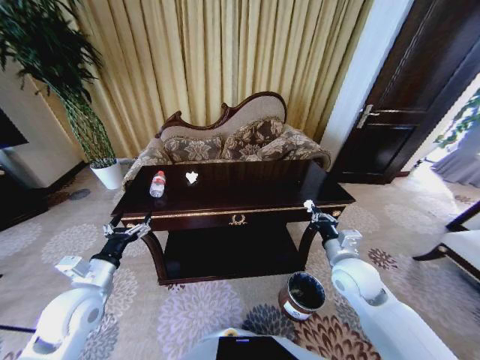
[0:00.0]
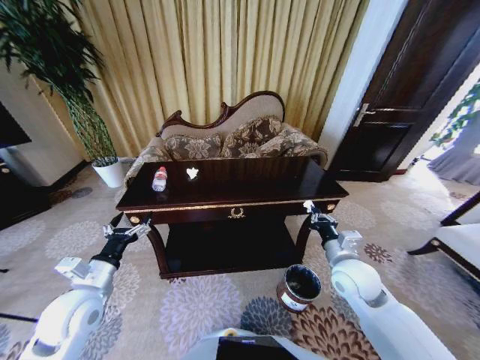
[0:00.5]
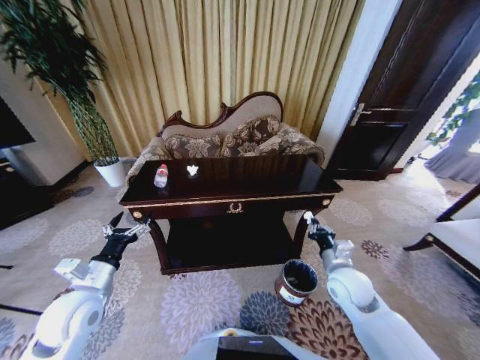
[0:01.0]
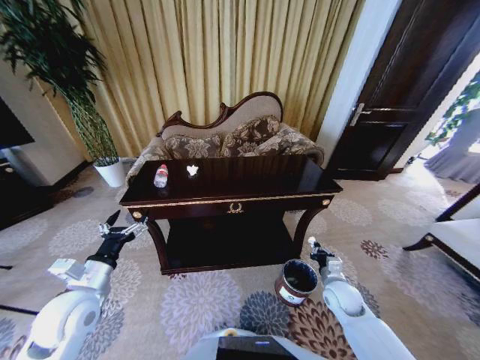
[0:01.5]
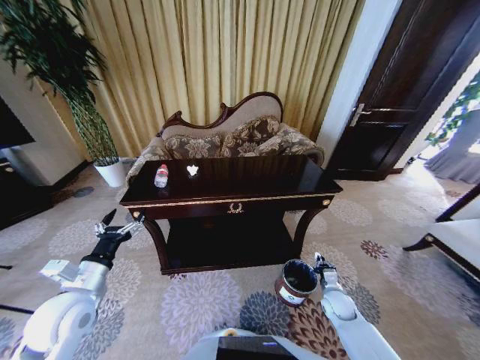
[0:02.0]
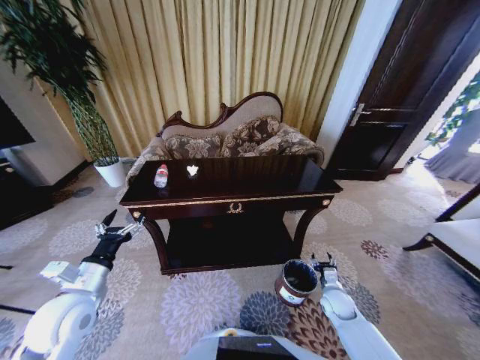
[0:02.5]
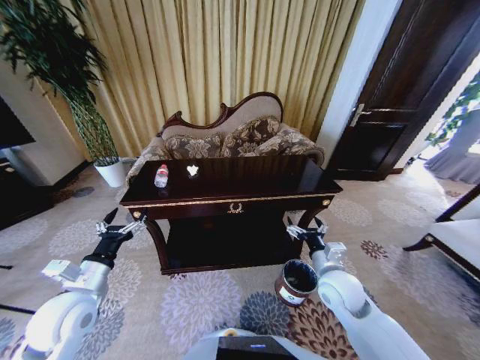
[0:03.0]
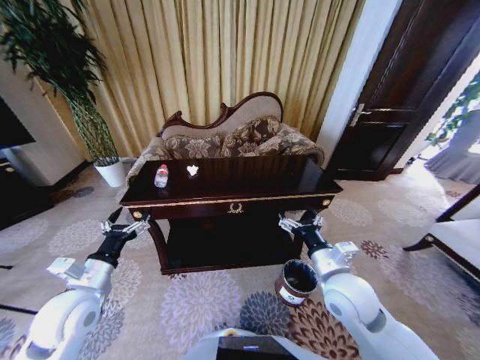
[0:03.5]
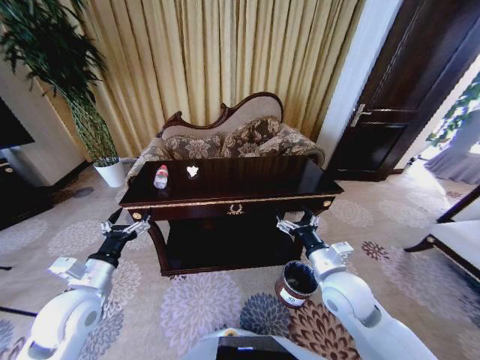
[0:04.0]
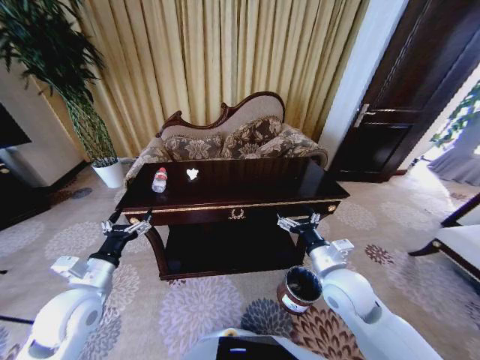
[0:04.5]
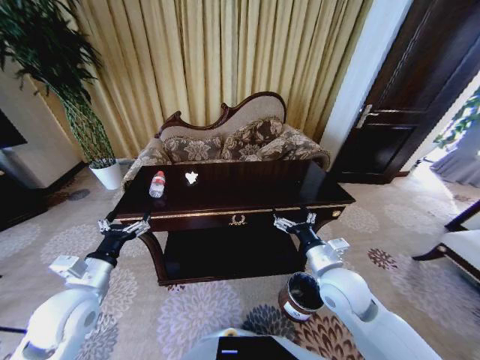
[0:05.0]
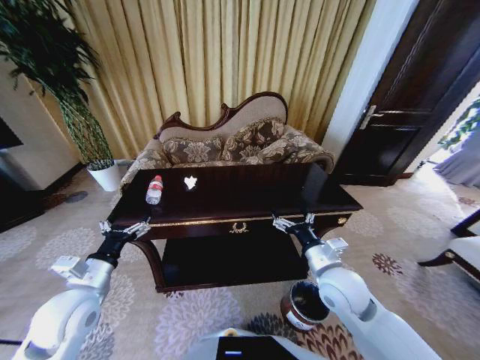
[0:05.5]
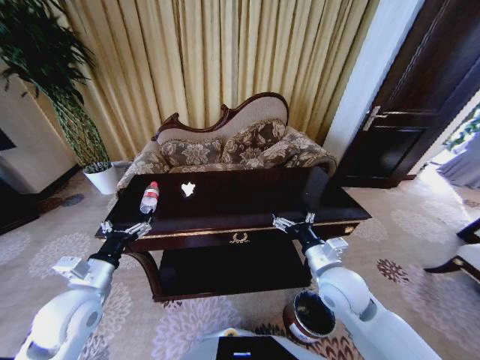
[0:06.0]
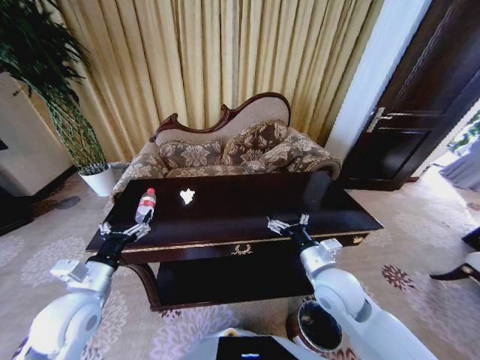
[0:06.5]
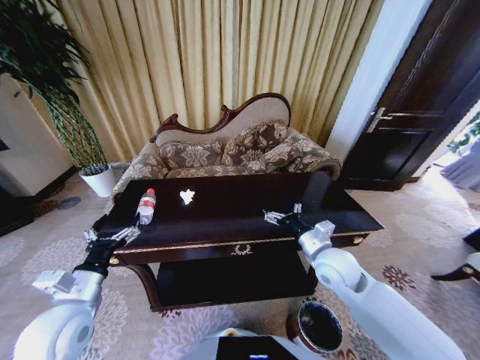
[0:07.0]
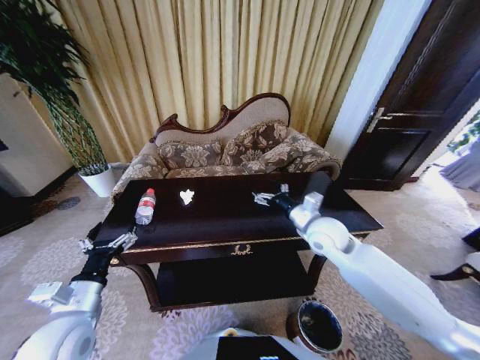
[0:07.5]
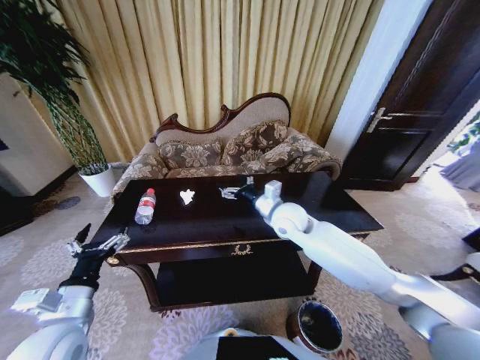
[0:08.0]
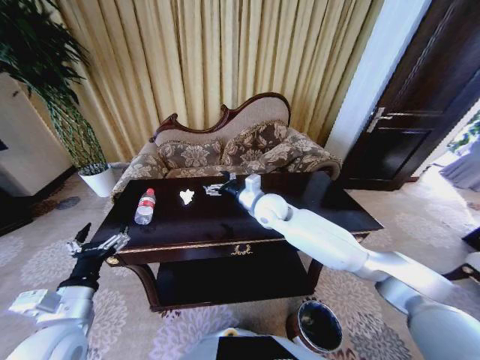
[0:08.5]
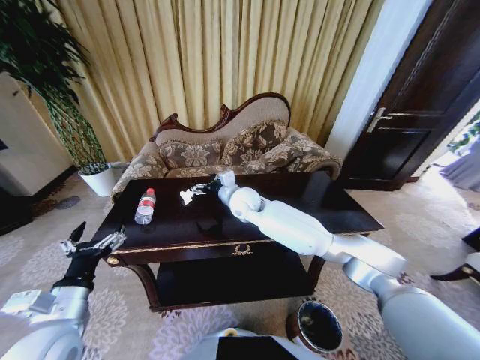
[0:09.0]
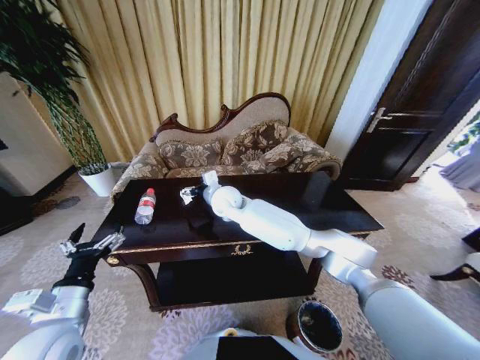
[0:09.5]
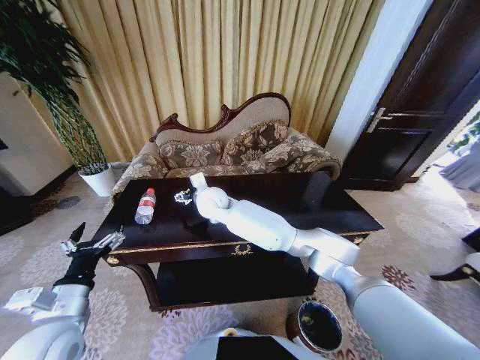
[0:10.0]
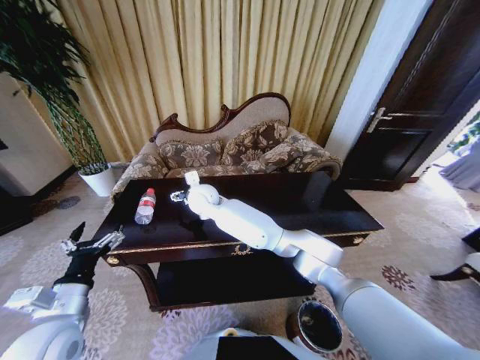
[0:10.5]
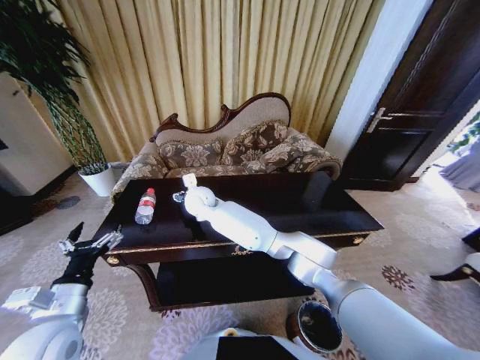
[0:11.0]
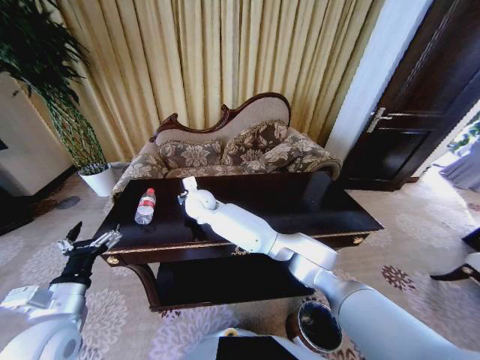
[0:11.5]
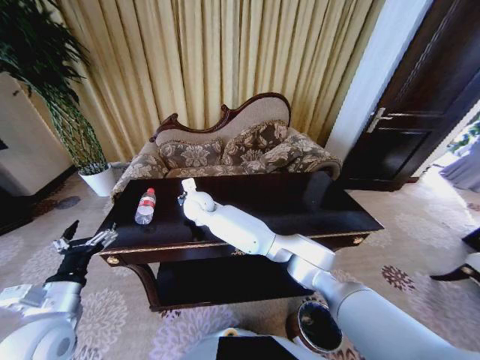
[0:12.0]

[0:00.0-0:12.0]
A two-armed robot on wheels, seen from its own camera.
Task of the whole recording: Move to the front of the table and place the trash on the table into the trash bin.
0:00.0 to 0:02.0: The right gripper moves downward, some 25 cm.
0:02.0 to 0:04.0: The right gripper travels upward and to the left by about 25 cm, and opens its fingers.
0:06.0 to 0:08.0: The left gripper heads backward, covering about 5 cm, while the right gripper travels forward and to the left by some 20 cm.
0:08.0 to 0:10.0: The right gripper moves to the left, roughly 20 cm.
0:10.0 to 0:12.0: The right gripper moves approximately 5 cm, and closes its fingers.

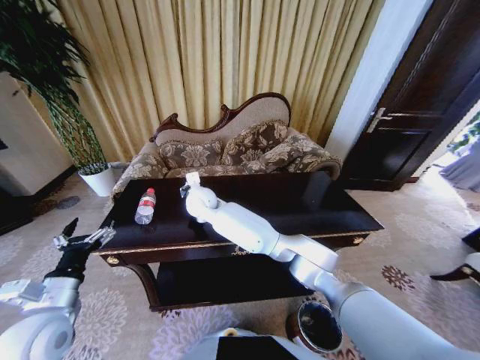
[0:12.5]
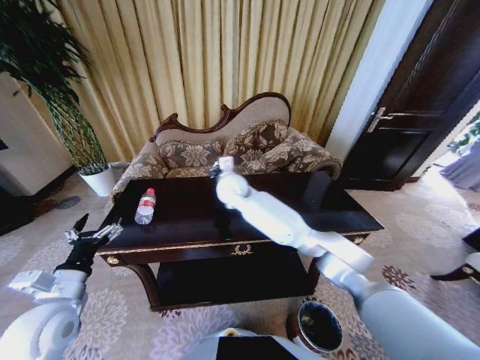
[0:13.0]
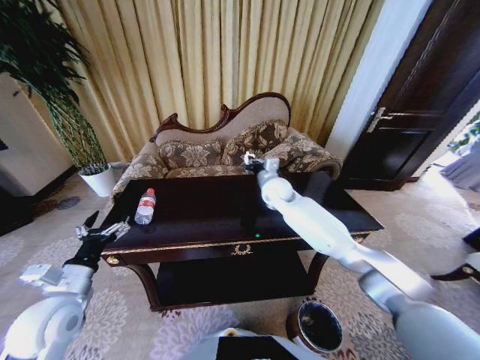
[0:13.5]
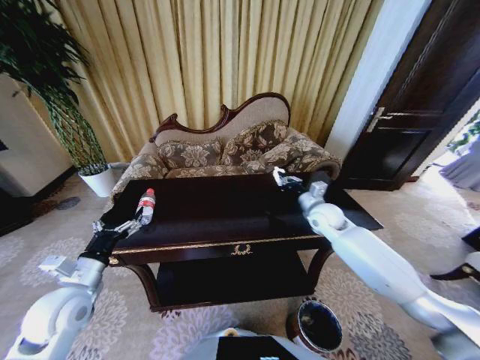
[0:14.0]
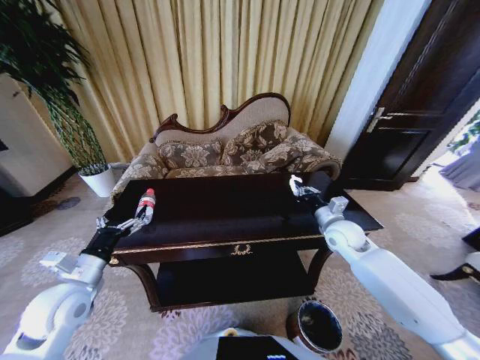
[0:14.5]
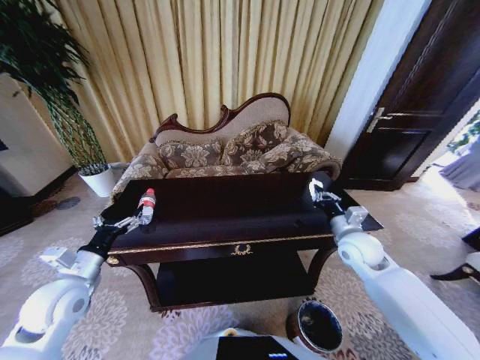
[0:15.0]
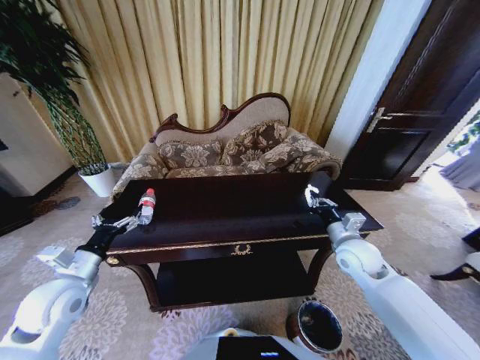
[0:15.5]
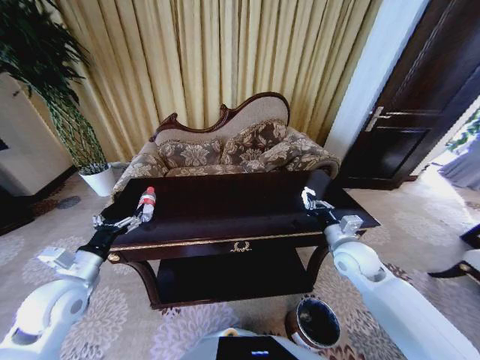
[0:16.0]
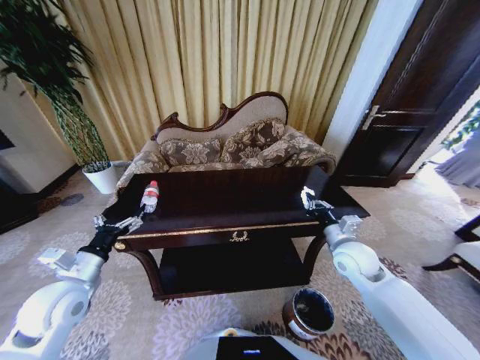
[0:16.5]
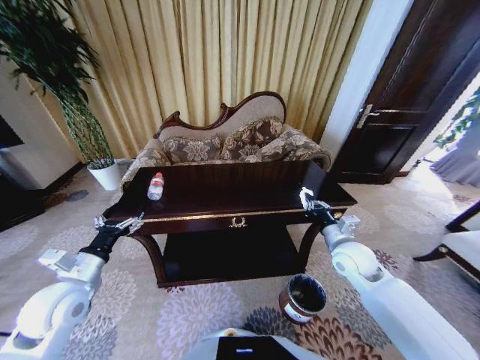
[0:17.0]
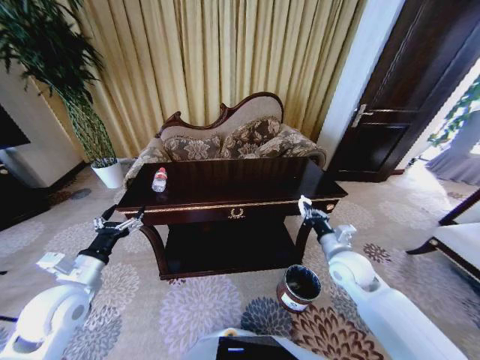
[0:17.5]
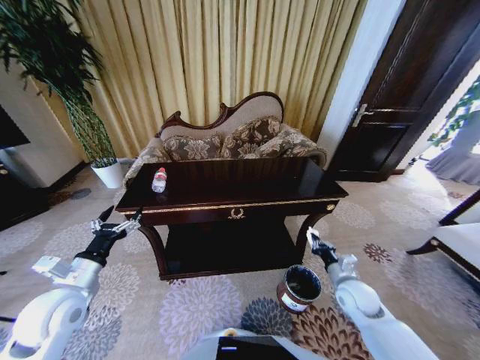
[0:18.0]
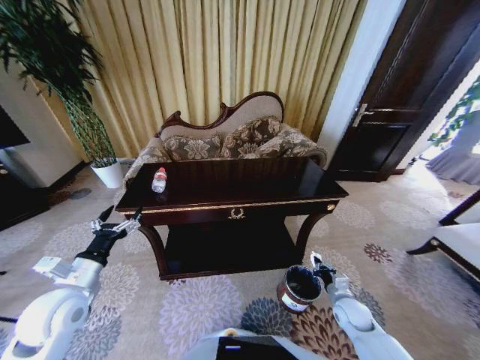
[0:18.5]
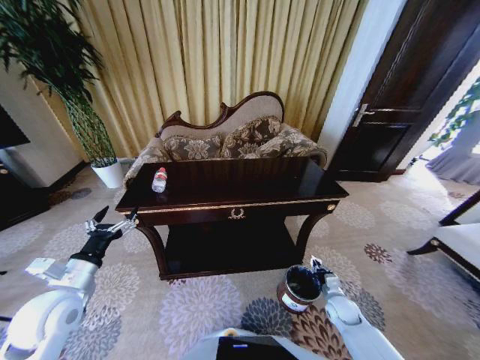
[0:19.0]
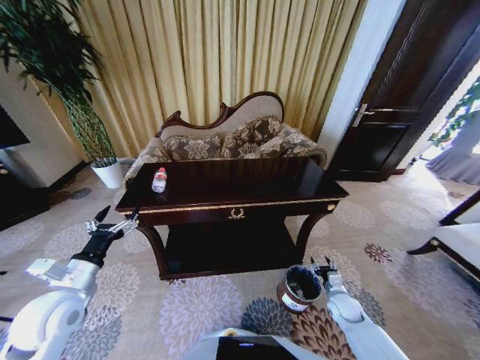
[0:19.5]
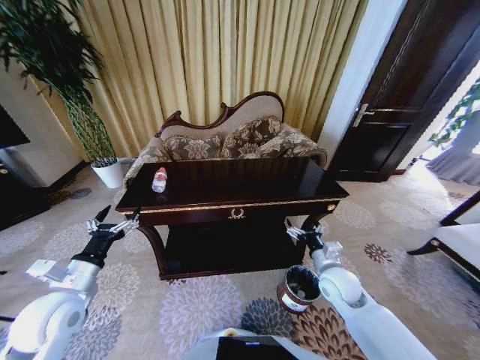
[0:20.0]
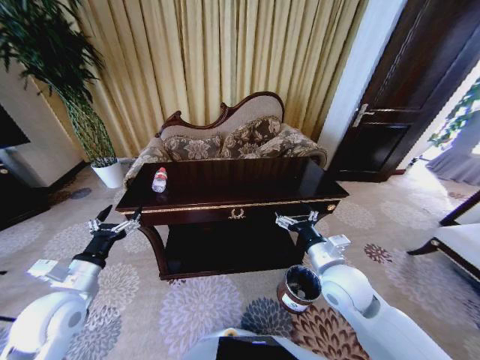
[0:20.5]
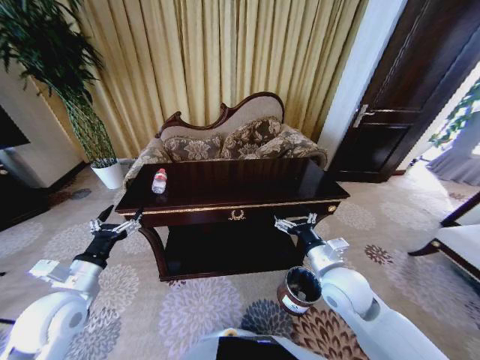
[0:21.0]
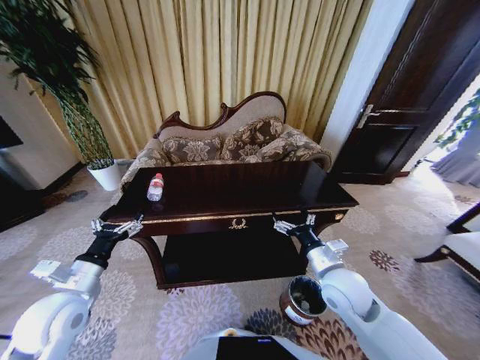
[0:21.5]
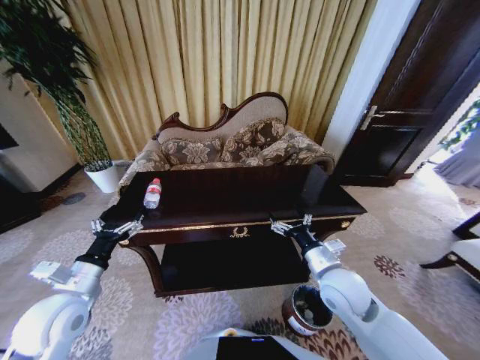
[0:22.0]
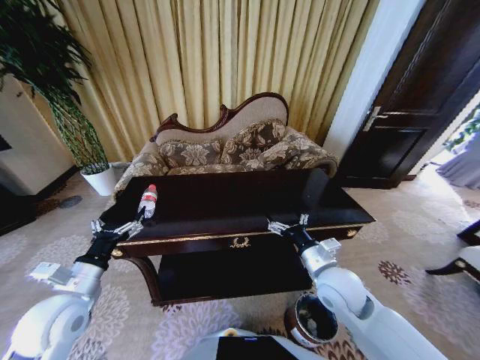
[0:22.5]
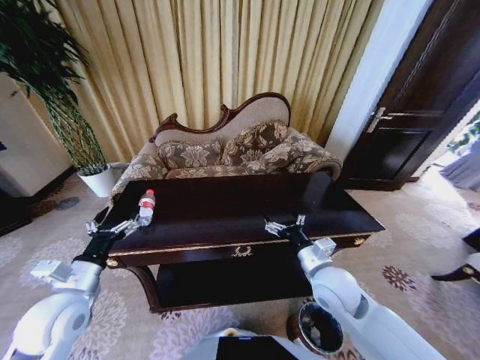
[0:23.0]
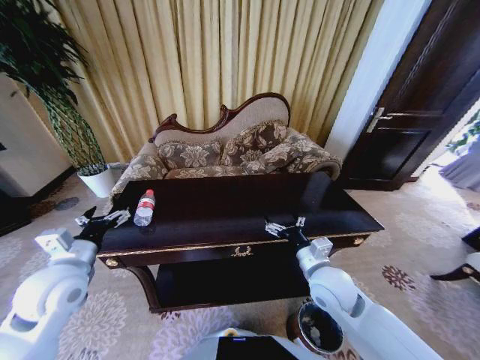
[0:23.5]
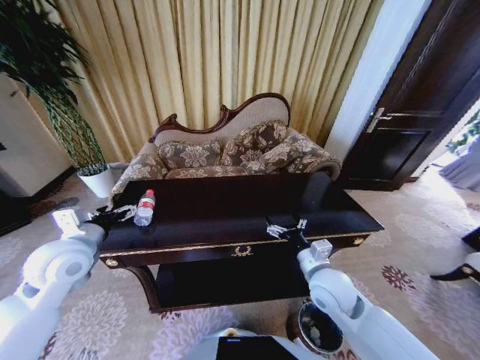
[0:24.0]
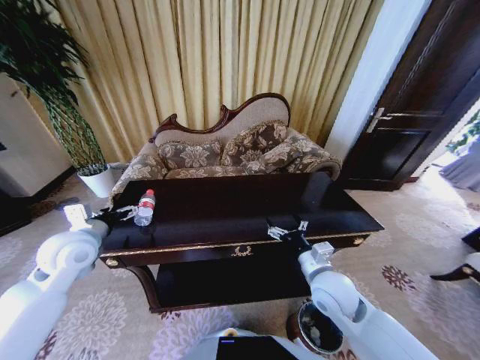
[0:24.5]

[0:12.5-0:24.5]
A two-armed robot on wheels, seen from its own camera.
Task of the whole recording: Move to the front of the table and place the trash on the table into the trash bin.
0:12.5 to 0:14.5: The left gripper is displaced forward by about 5 cm; the right gripper travels to the right by some 40 cm.
0:14.5 to 0:16.5: The right gripper shifts approximately 5 cm backward.
0:16.5 to 0:18.5: The right gripper shifts about 25 cm downward and backward.
0:18.5 to 0:20.5: The right gripper moves upward and to the left, some 25 cm, and opens its fingers.
0:22.5 to 0:24.5: The left gripper travels forward and upward by approximately 15 cm.

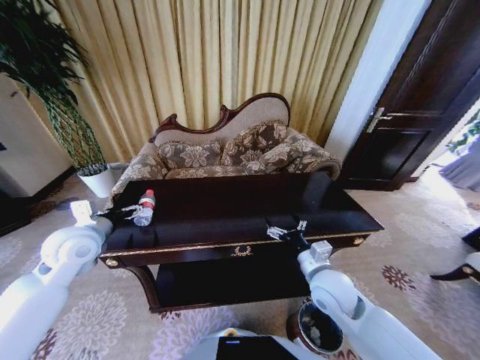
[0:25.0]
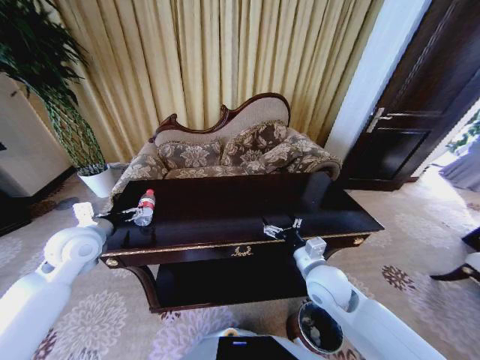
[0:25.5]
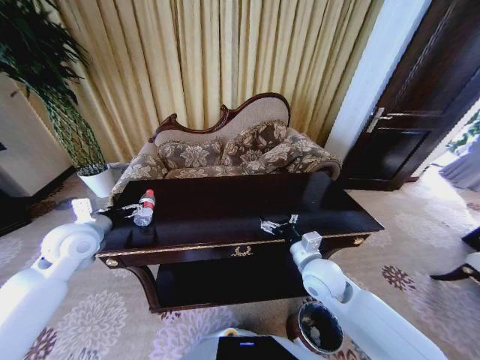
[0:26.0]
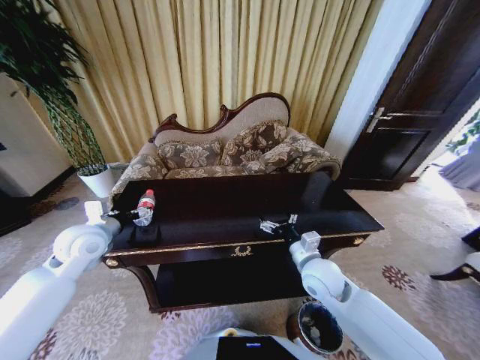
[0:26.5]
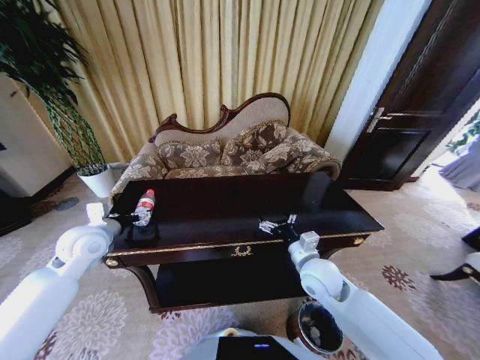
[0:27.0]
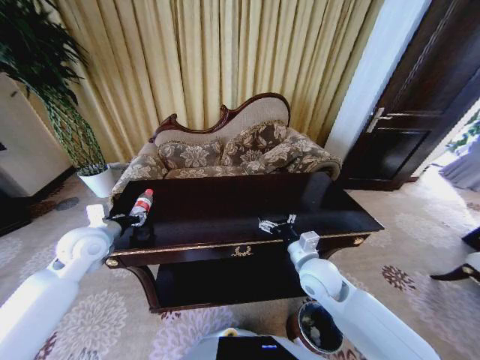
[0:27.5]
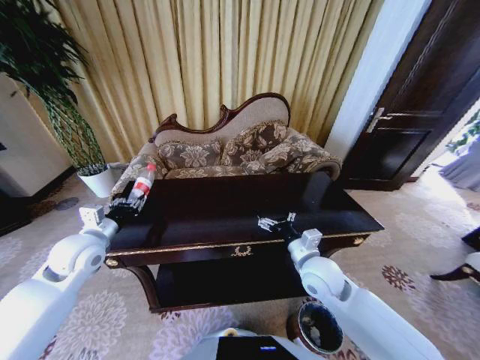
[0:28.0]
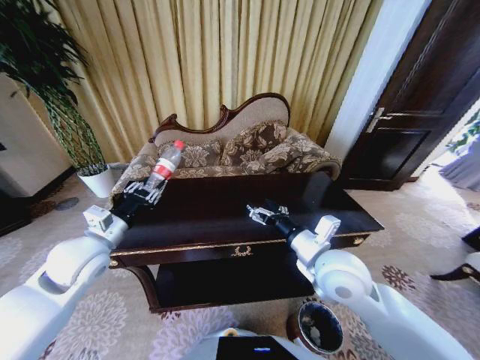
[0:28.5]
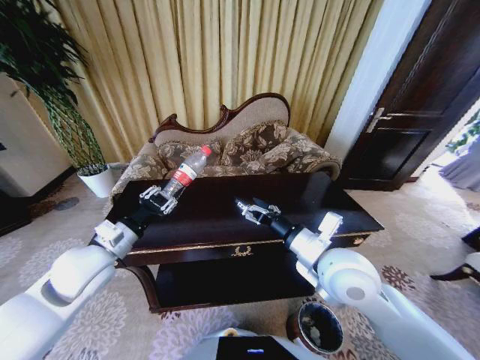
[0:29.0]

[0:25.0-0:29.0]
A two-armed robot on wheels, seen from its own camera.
Task of the whole recording: Move to the front of the table and place the trash on the table into the trash bin.
0:25.0 to 0:27.0: The grippers make only small movements.
0:27.0 to 0:29.0: The left gripper goes some 10 cm backward and to the right, and closes up; the right gripper goes roughly 15 cm upward.
